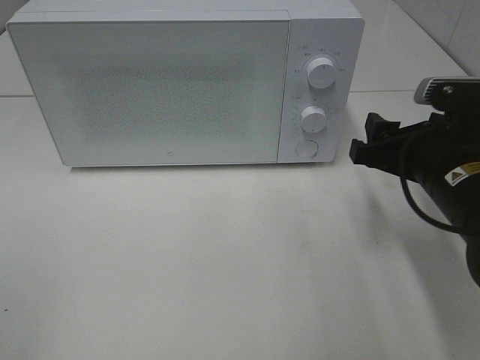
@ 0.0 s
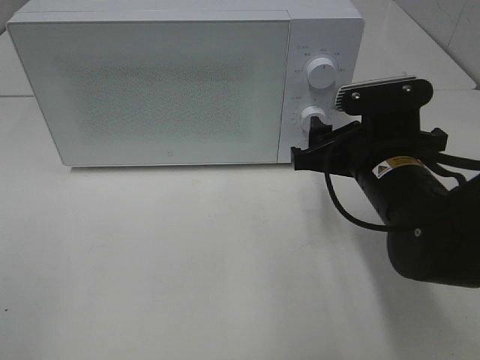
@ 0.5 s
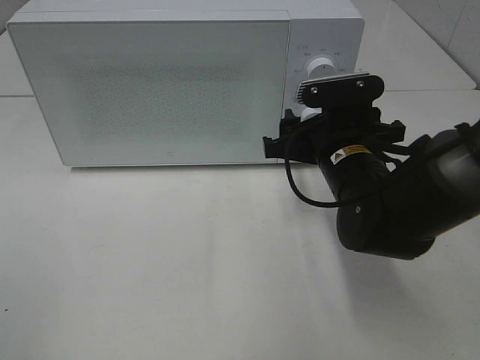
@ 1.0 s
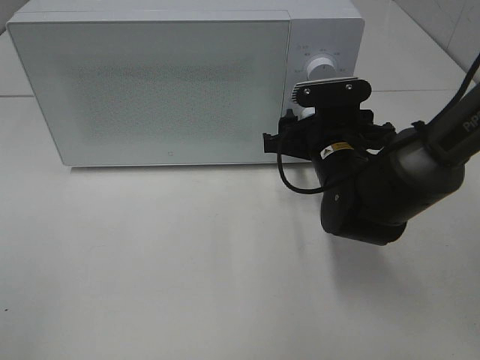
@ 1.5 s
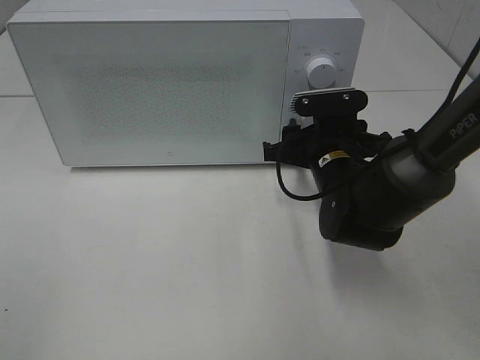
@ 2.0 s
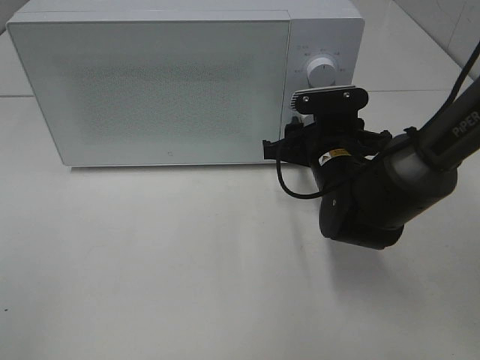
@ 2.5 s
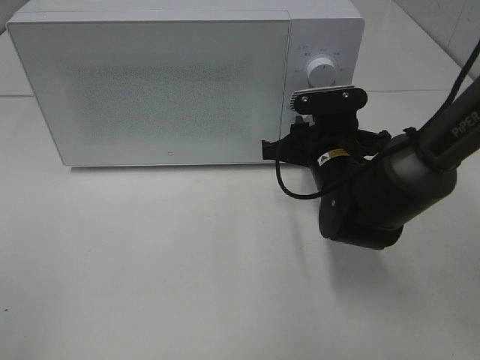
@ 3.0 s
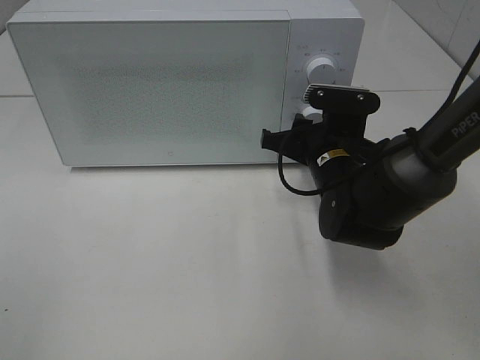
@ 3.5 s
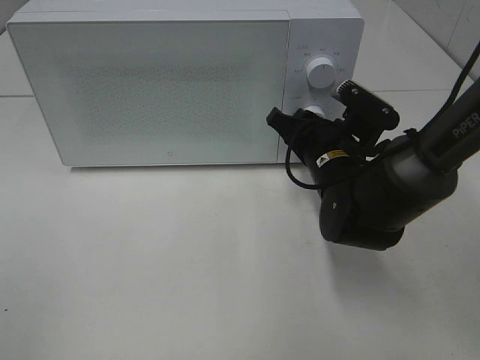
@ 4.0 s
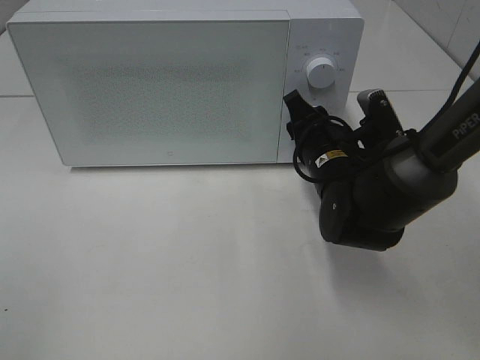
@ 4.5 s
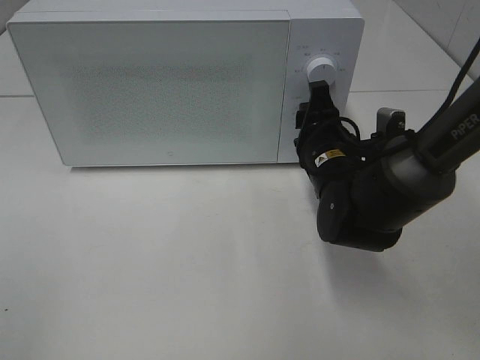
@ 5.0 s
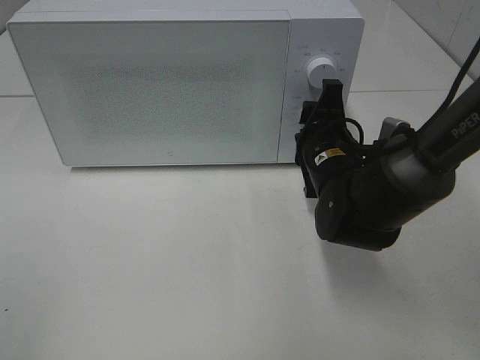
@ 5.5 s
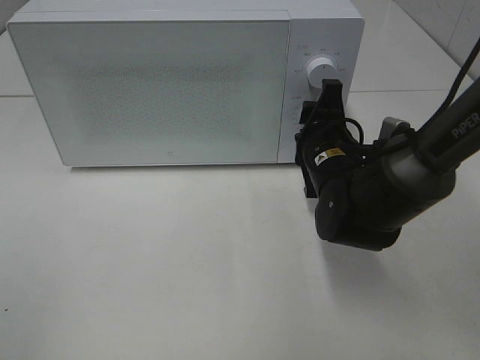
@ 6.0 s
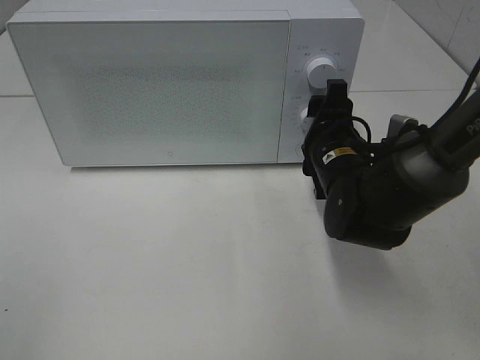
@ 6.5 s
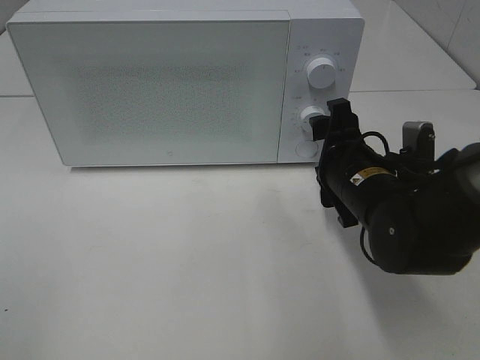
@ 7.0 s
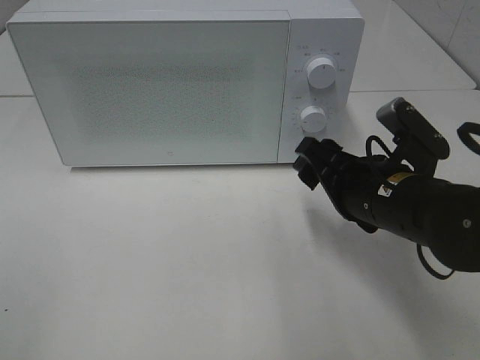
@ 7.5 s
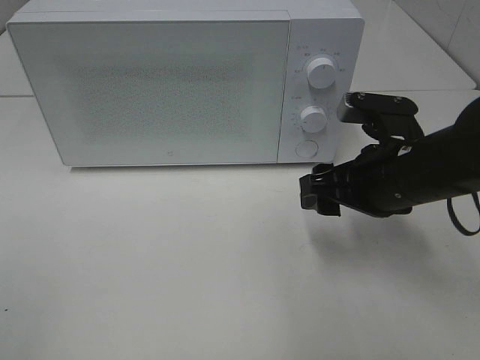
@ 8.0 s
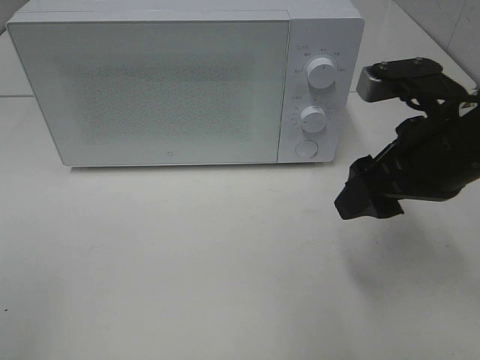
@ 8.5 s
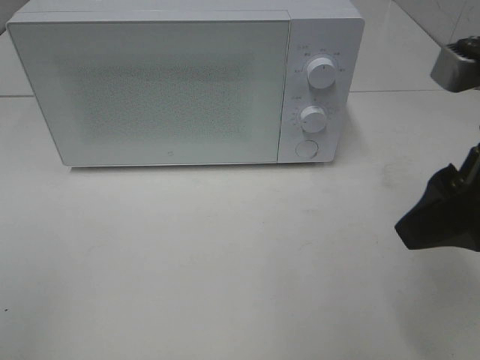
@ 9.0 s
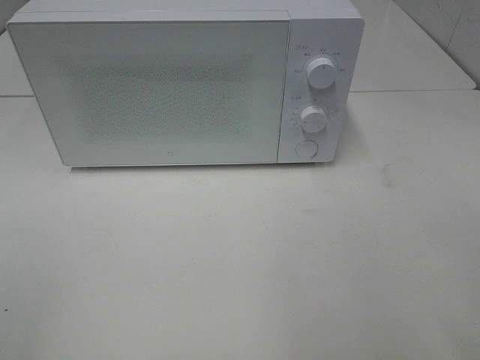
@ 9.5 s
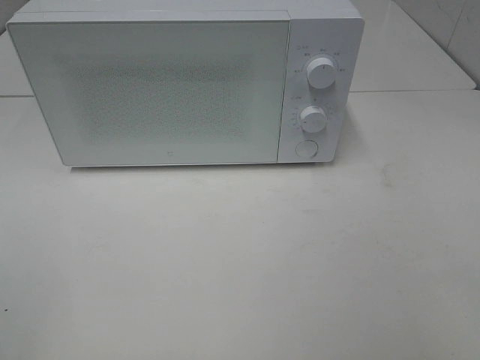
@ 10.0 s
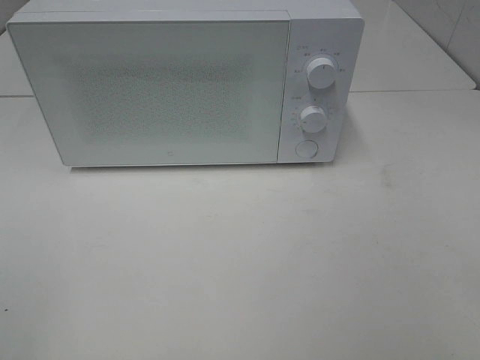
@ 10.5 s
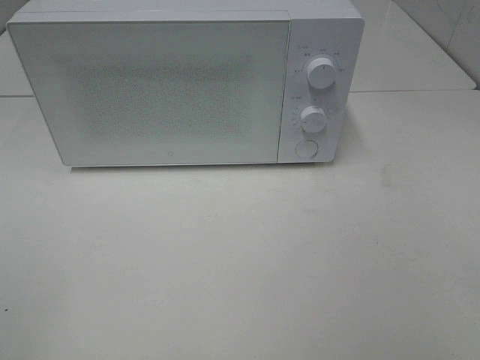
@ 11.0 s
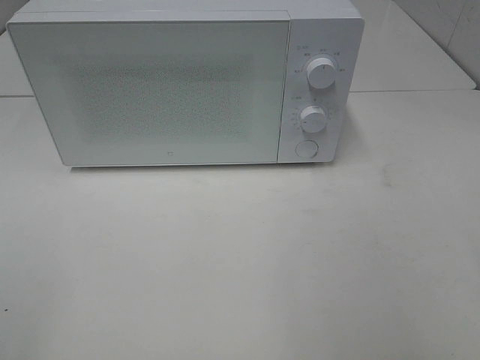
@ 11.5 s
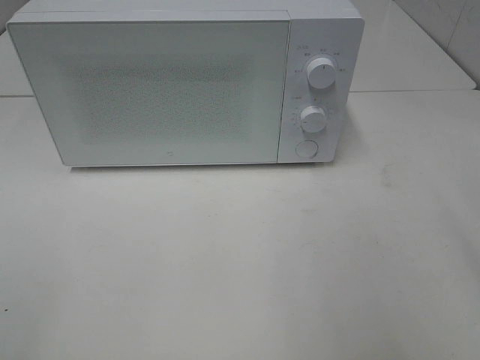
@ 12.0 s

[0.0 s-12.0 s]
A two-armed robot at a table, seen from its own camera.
Task of the whole recording: Heat the burger.
Step, 0.0 to 6.5 s: Right hand: twist timer button.
0.0 to 2.0 s: The right gripper is displaced forward, to the left and downward by about 15 cm.
6.0 to 8.0 s: The right gripper is displaced backward and upward by approximately 10 cm, and opens its fingers.
8.0 to 10.0 s: The right gripper is displaced backward, upward and to the right by about 30 cm.

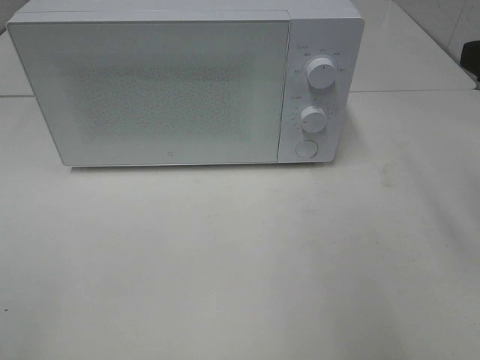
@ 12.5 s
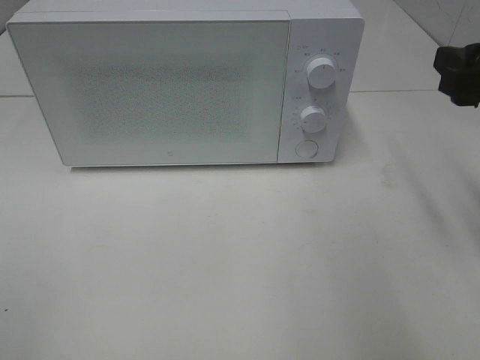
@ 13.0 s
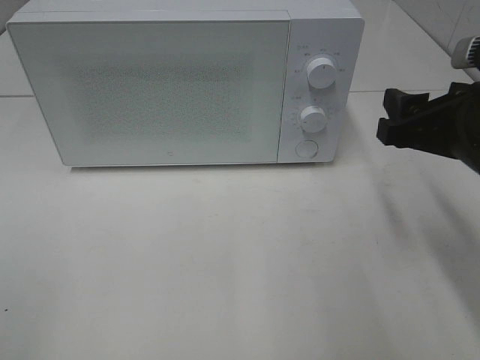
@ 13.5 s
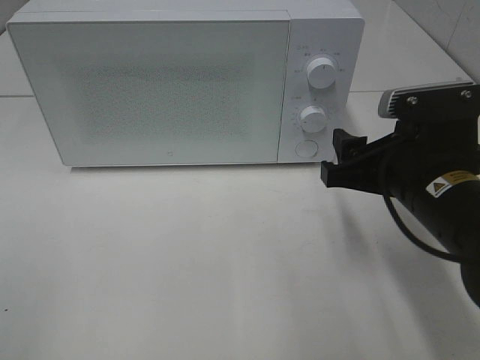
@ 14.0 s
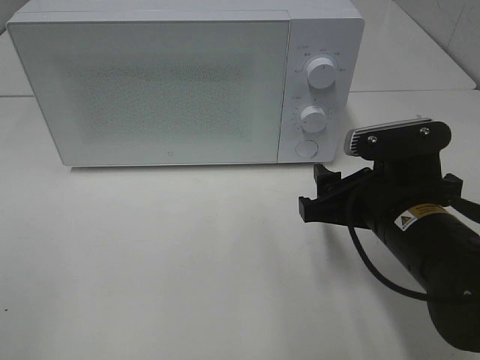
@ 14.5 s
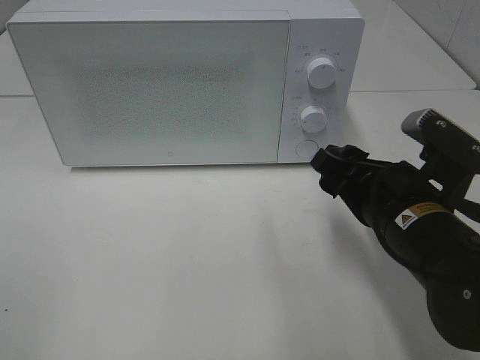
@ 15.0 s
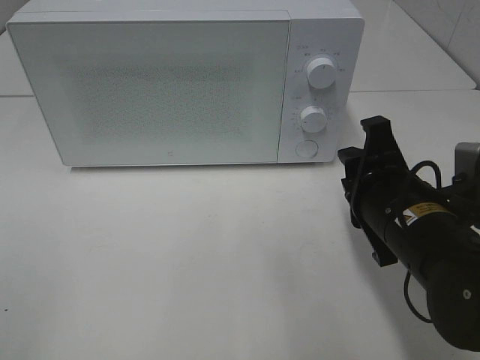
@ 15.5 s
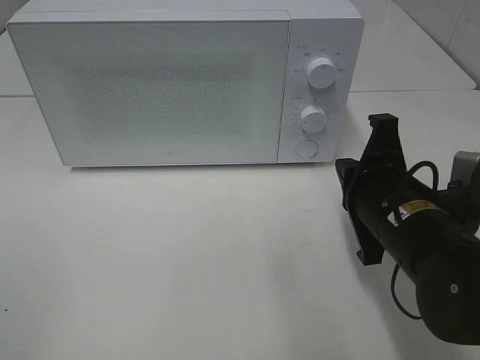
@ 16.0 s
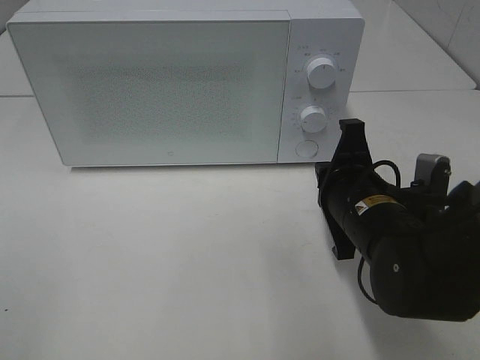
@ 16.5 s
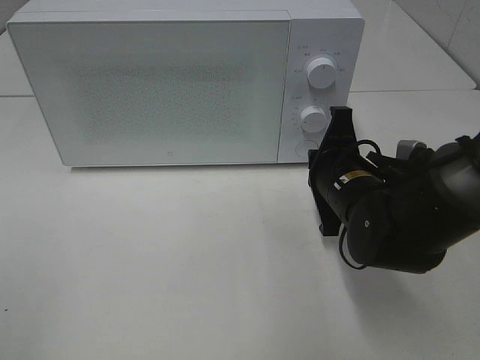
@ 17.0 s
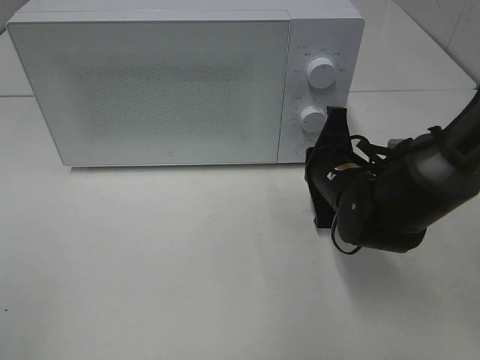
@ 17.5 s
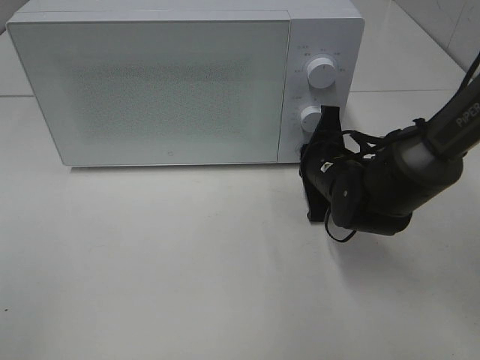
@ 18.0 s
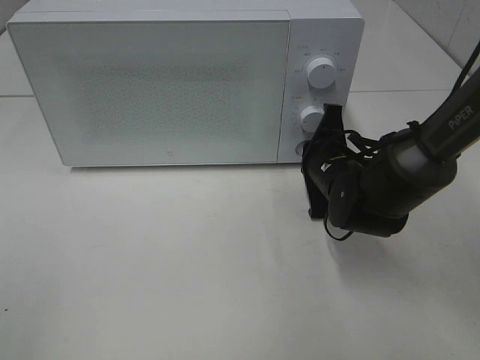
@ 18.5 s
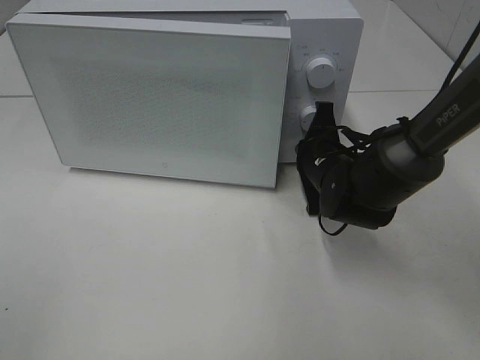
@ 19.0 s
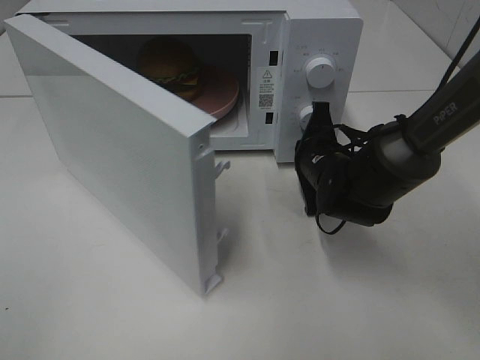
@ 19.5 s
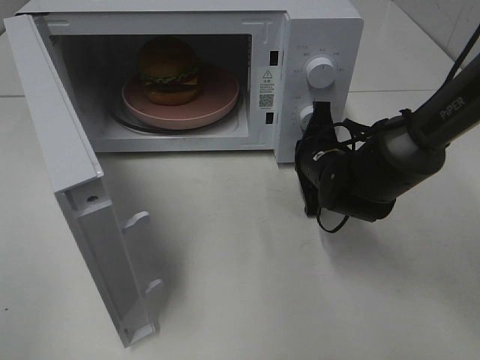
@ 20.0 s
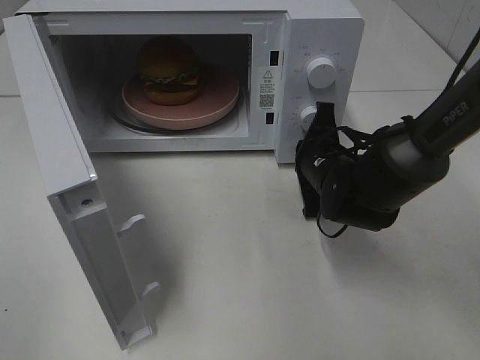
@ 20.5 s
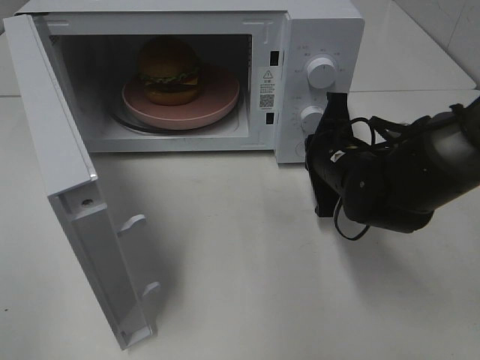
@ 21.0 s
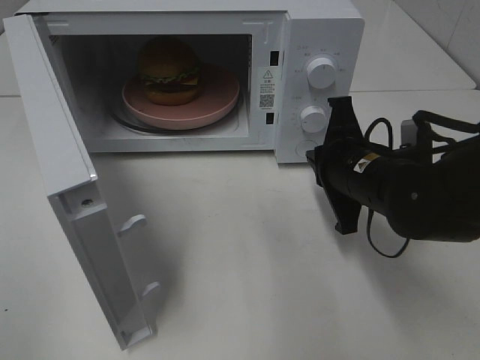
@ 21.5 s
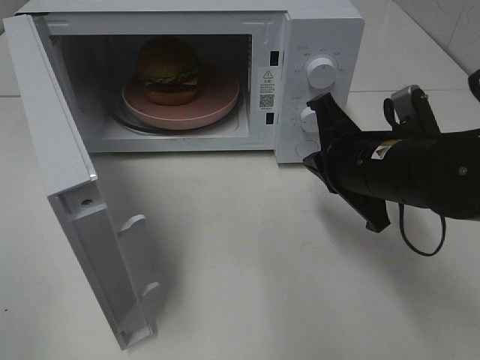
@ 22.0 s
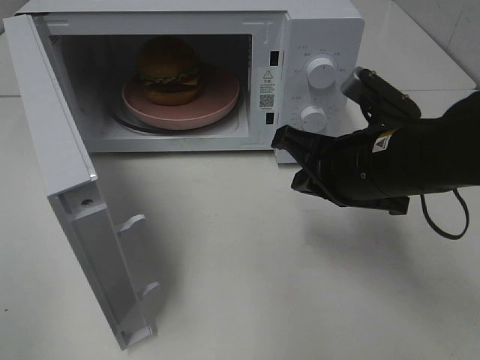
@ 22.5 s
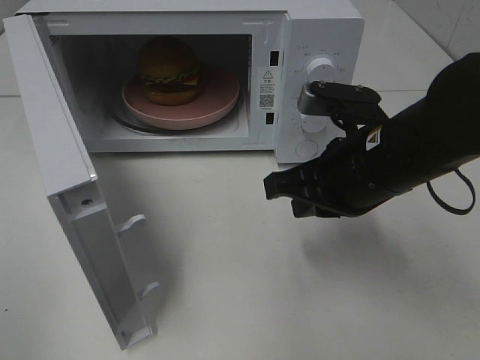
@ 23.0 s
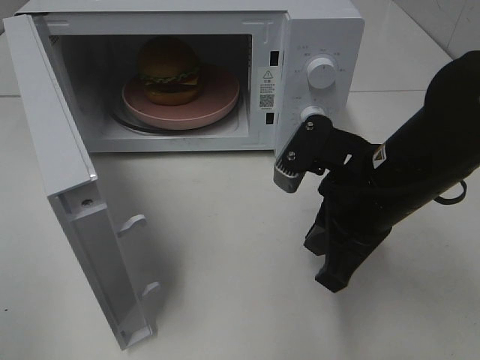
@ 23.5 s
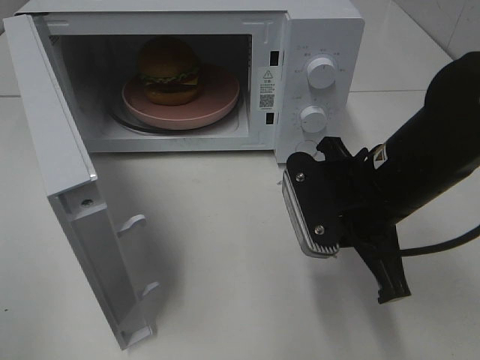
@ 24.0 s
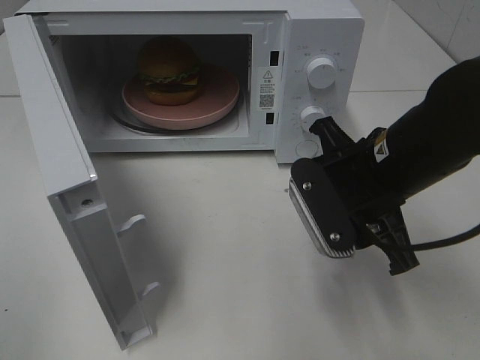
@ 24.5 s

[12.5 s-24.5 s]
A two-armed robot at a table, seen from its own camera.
Task of the whole recording: Heat the burger.
Step, 12.5 to 21.0 s: Right hand: press the switch.
12.5 to 14.5 s: The right gripper goes approximately 20 cm downward and to the left.
14.5 to 16.5 s: The right gripper closes up.
16.5 to 18.5 s: The right gripper travels forward by approximately 10 cm.
20.5 to 22.5 s: The right gripper is displaced upward and backward by approximately 15 cm.
22.5 to 24.5 s: The right gripper opens.

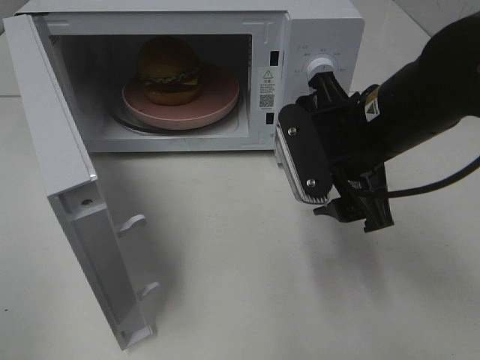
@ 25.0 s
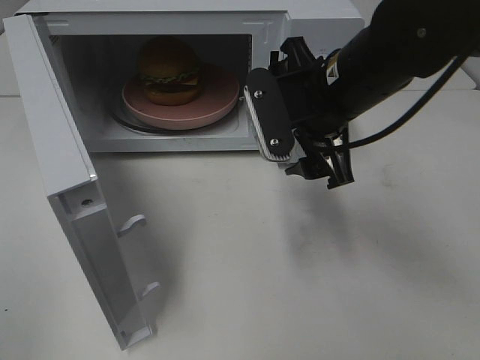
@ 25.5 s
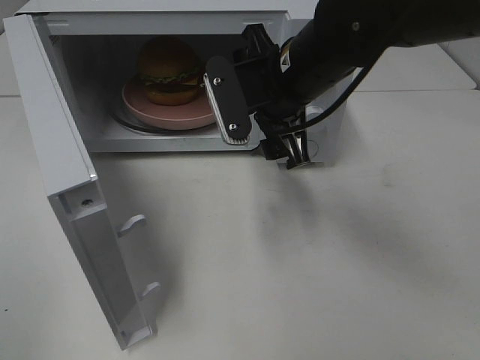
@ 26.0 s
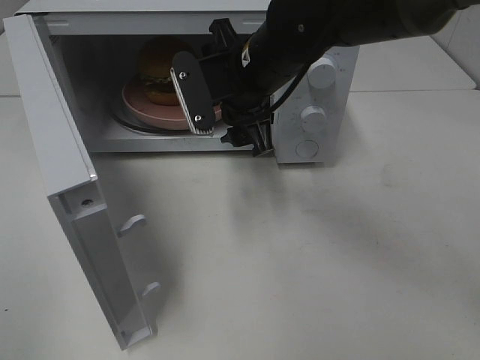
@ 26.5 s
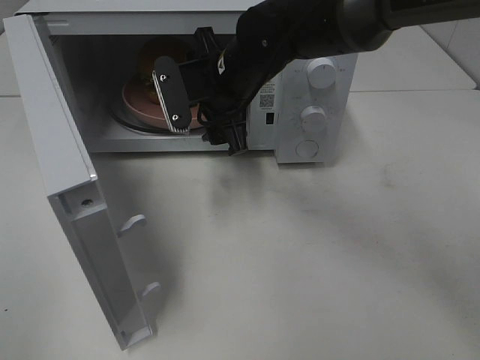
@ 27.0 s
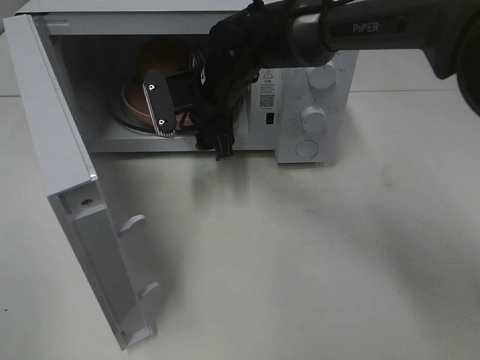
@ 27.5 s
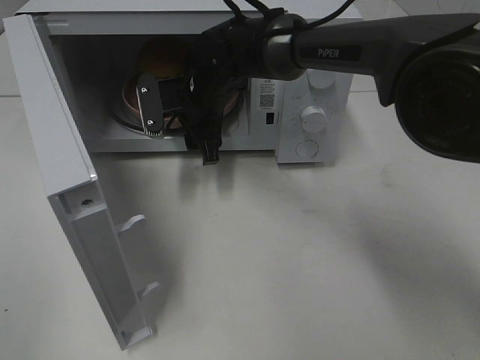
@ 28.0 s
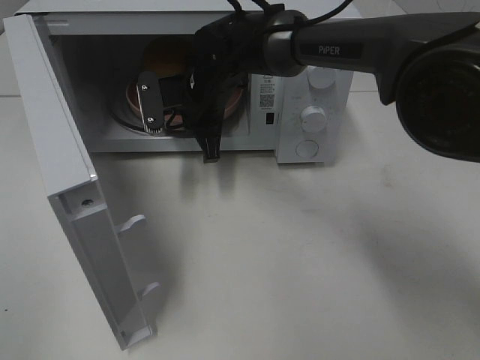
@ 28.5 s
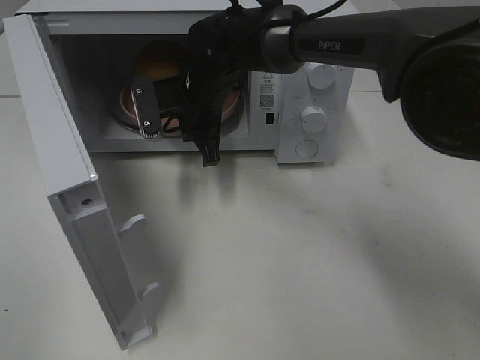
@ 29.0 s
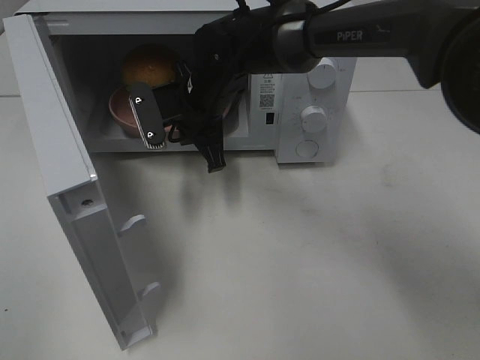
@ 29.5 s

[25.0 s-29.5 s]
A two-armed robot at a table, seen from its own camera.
Task of the whole recording: Heat the burger.
Step, 25.0 to 28.0 s: Right hand: grab the plate with the hamburger.
25.0 to 27.0 s: The right gripper shifts some 20 cm forward and to the left.
27.0 to 29.5 s: The right gripper closes up.
